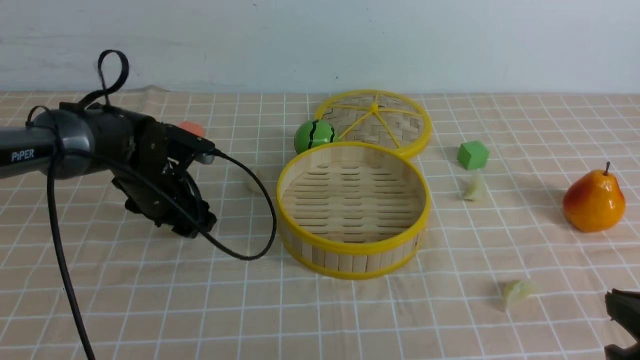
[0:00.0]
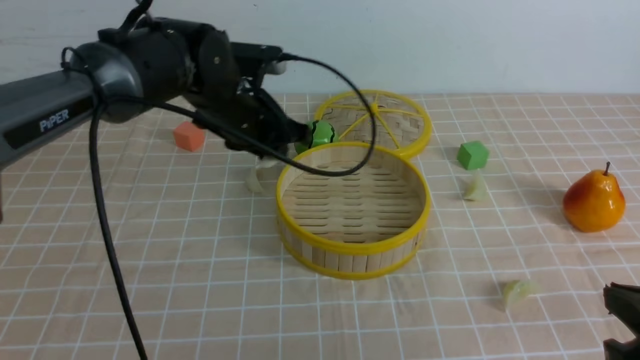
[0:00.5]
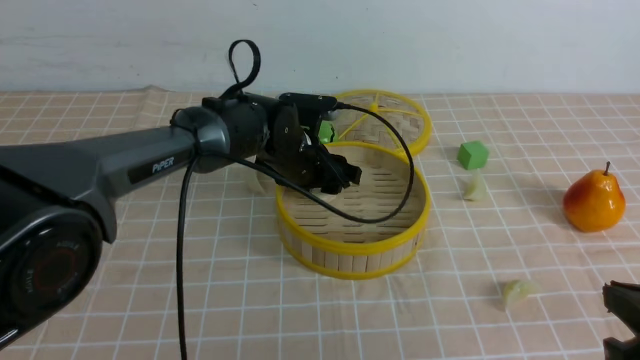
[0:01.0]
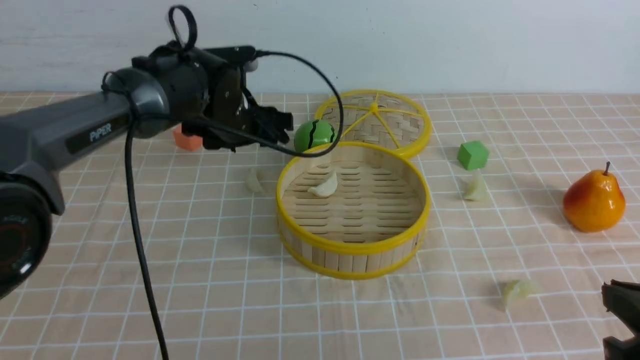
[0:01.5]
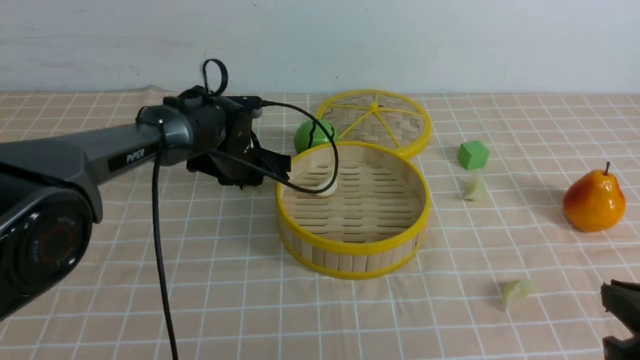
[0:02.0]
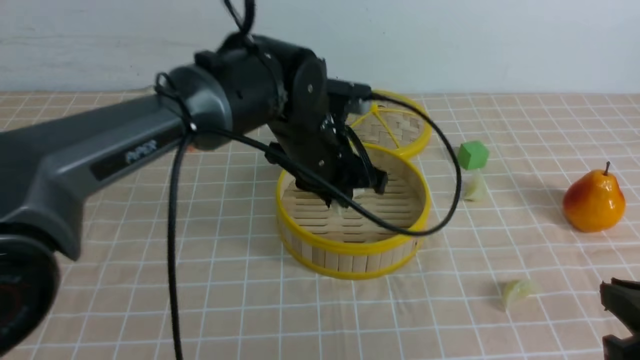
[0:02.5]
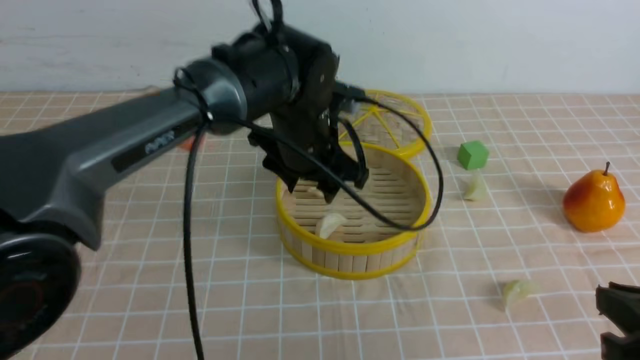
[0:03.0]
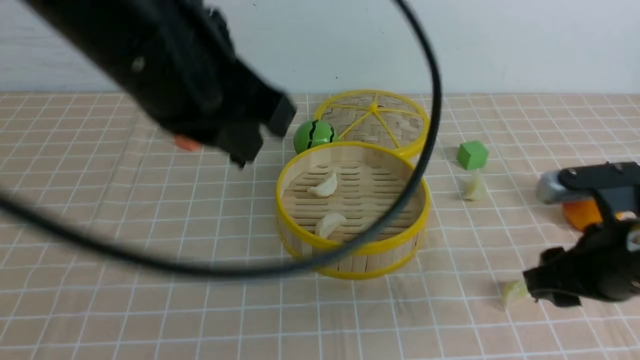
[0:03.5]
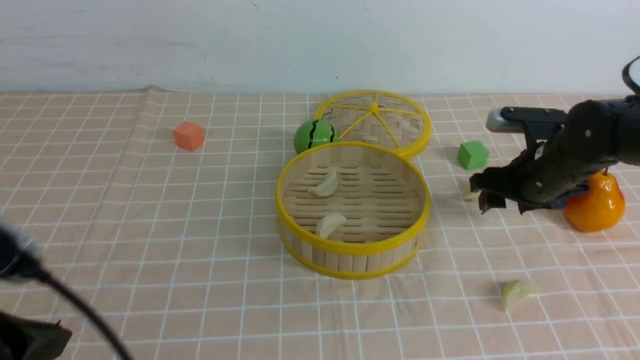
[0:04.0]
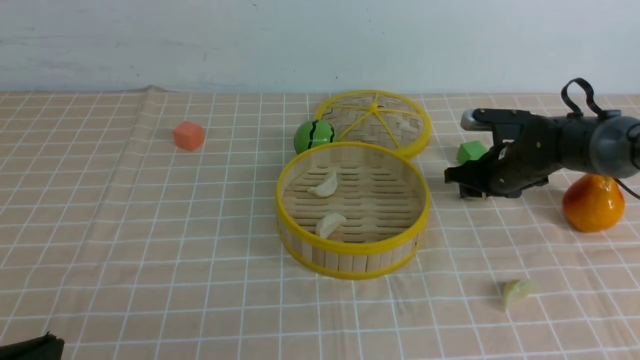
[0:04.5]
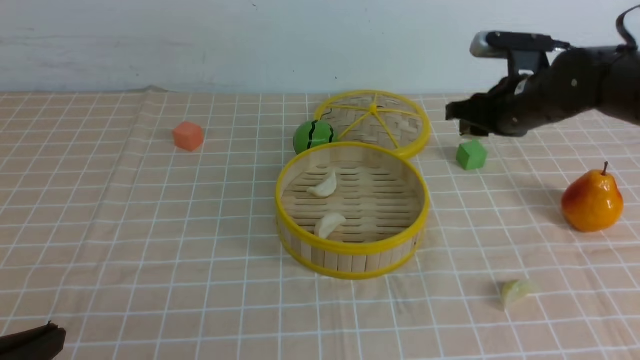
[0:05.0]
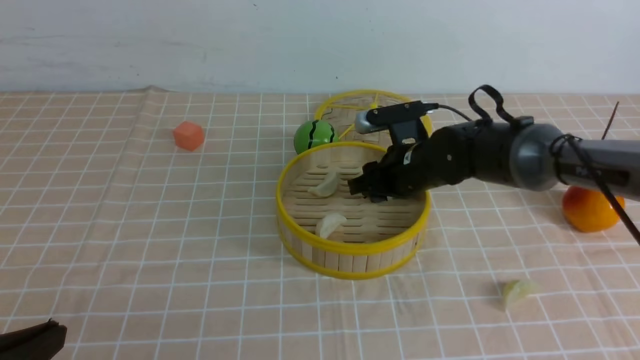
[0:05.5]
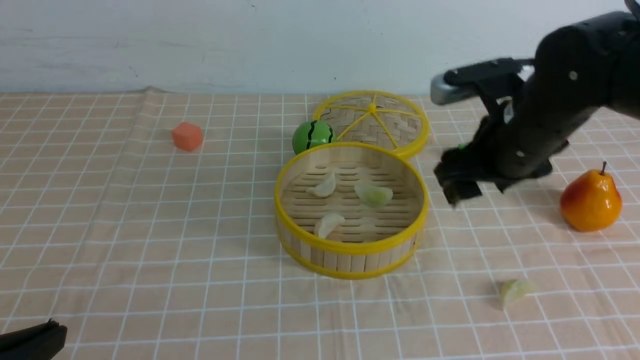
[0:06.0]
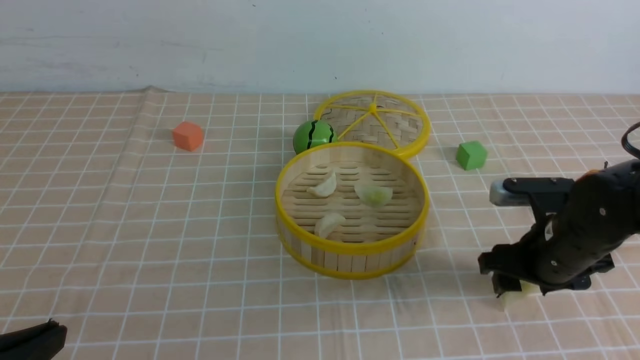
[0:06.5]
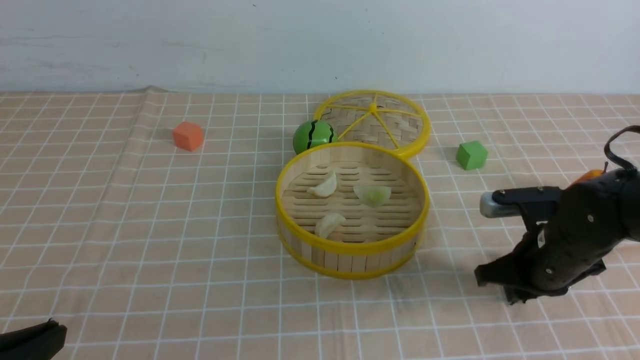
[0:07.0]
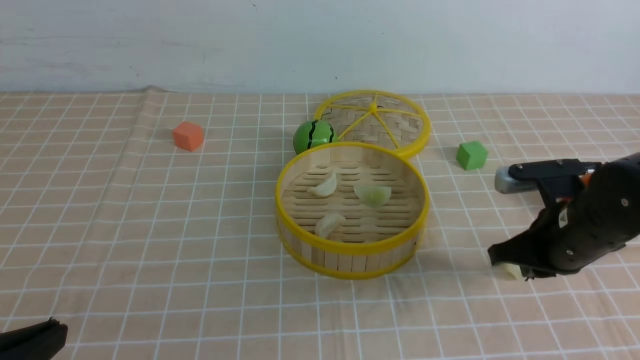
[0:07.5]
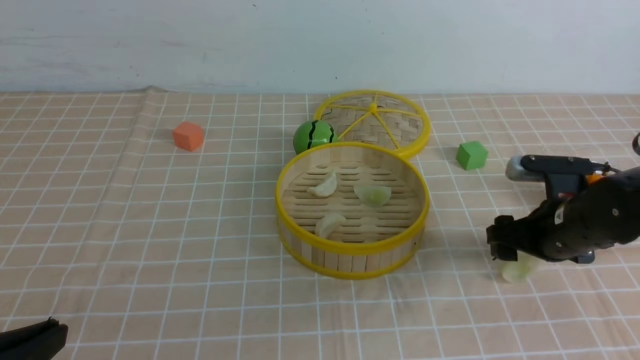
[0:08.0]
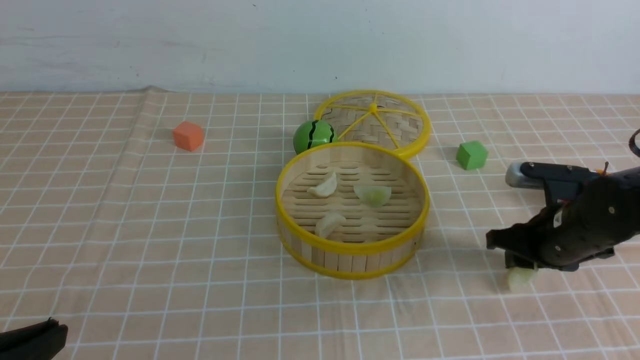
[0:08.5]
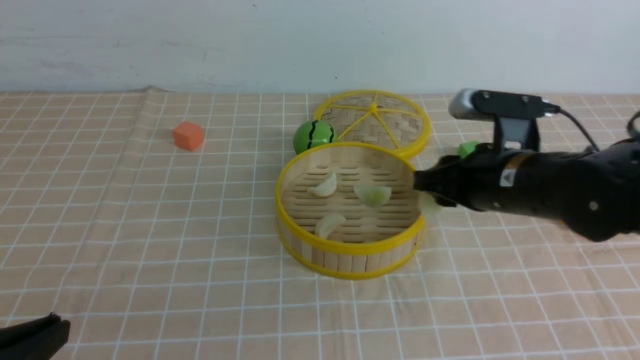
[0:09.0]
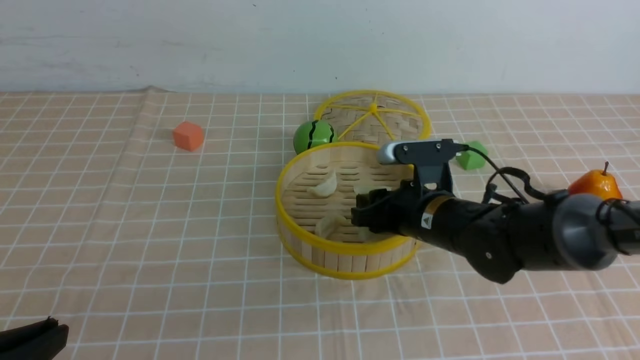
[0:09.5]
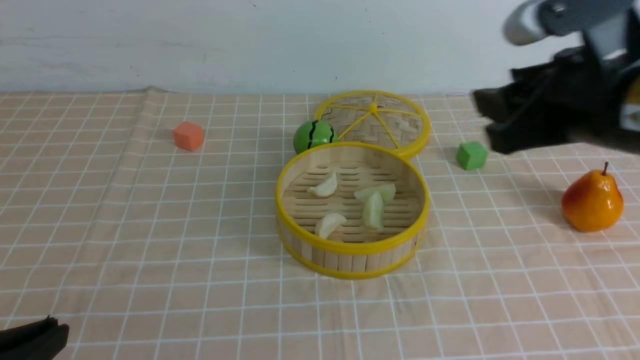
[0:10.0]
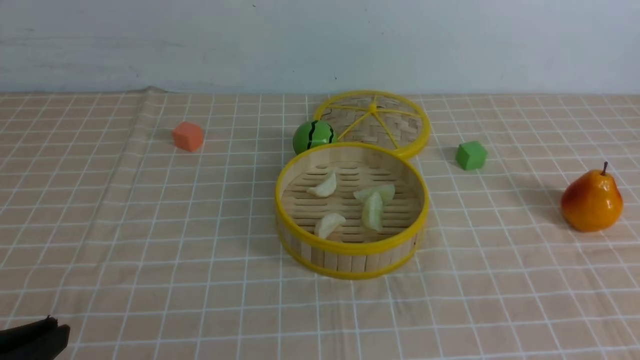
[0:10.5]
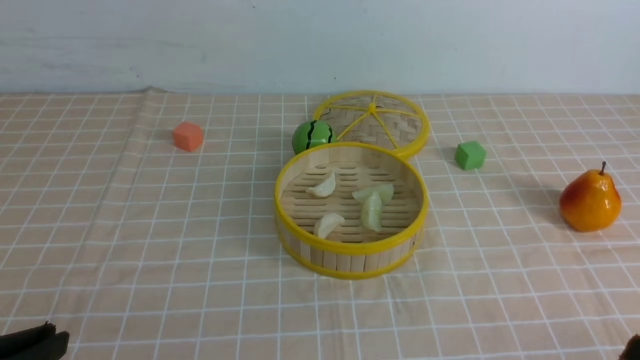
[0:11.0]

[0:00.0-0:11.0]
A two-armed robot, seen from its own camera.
Task of the whole recording: put the dumplings into the steamer on the table with the brown tablecloth.
Step, 0:00.5 to 0:01.0: use the left arm to put the dumpling into the steamer.
Step, 0:01.5 to 0:02.0: use the left arm to grab a dumpling.
Step, 0:03.0 to 0:04.5: use the right arm to grab a dumpling.
Step, 0:05.0 to 0:05.5: use the right arm to put the dumpling into the steamer.
Step, 0:06.0 to 0:08.0: use the right arm to grab a dumpling.
Step, 0:08.5 to 0:09.5: use the right arm to put the dumpling into the steamer.
0:00.0 to 0:02.0: The left gripper goes some 10 cm to the right, and closes.
0:02.0 to 0:03.5: The right gripper goes about 10 cm forward, and opens up. The left gripper is displaced backward and upward by roughly 30 cm, and opens, then closes again.
0:03.5 to 0:05.5: The left gripper moves backward, downward and to the left, some 25 cm. The right gripper travels forward and to the left by approximately 20 cm.
0:05.5 to 0:07.5: The right gripper shifts some 15 cm to the right and backward, and closes.
0:07.5 to 0:09.0: The right gripper shifts approximately 5 cm to the left, and opens and closes again.
0:09.0 to 0:11.0: The right gripper goes approximately 30 cm backward, and closes up.

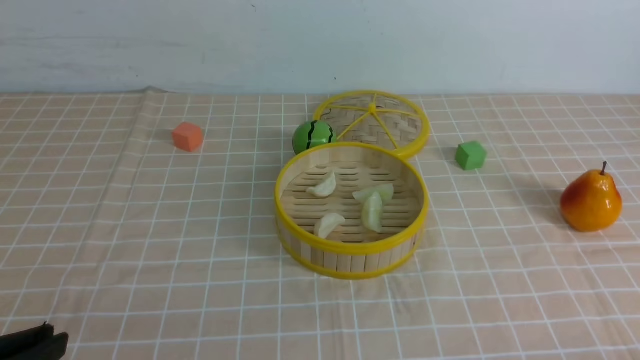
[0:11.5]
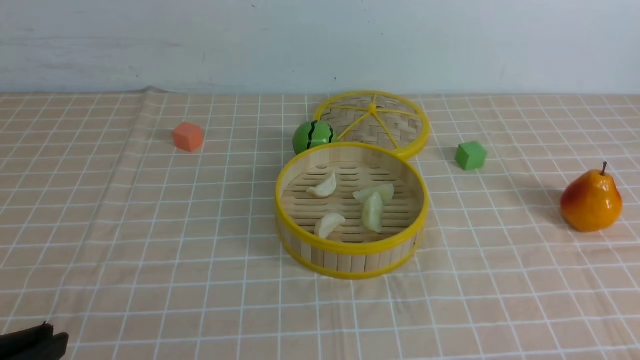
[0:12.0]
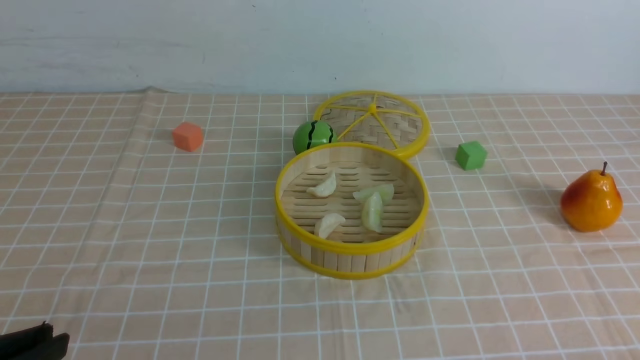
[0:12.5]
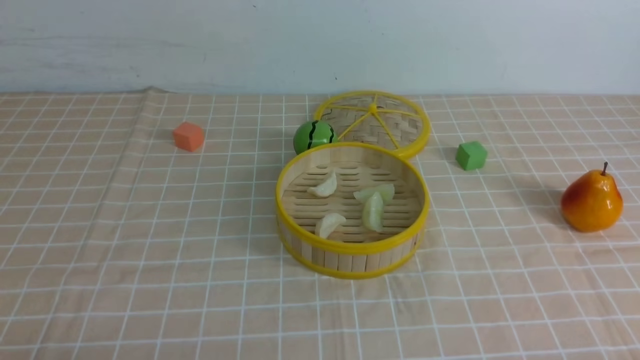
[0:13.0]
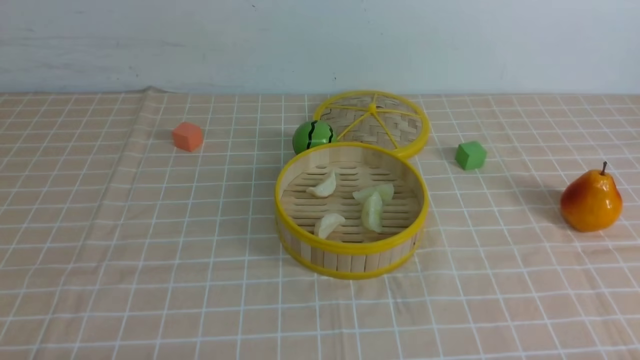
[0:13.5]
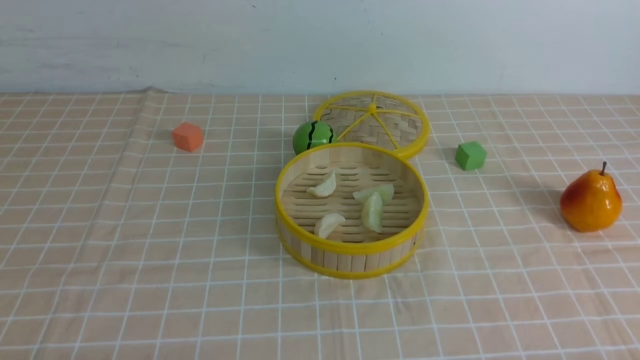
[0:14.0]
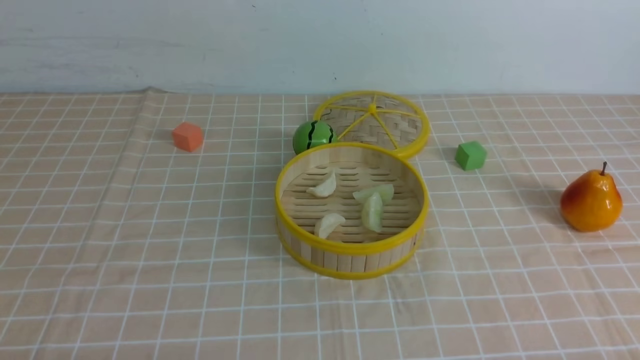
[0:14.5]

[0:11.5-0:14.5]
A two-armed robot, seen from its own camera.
Task of the whole recording: put the dumplings into the steamer on the table with the brown tablecloth.
0:11.5 to 0:13.0: The left gripper is displaced downward by roughly 5 cm.
